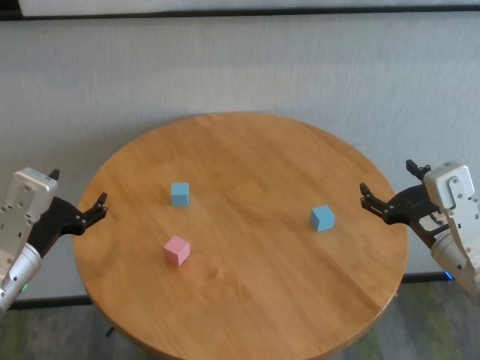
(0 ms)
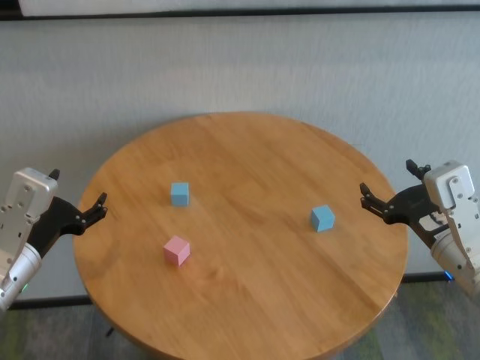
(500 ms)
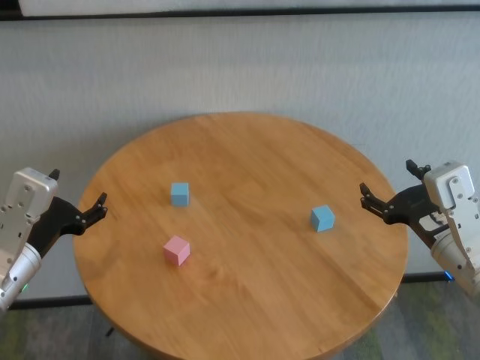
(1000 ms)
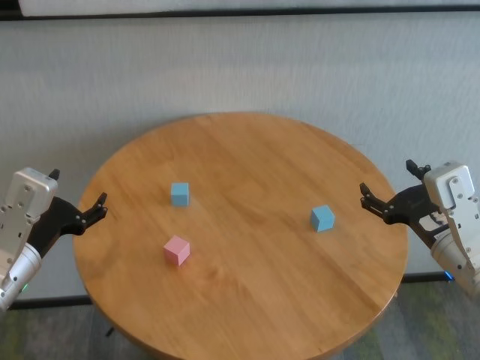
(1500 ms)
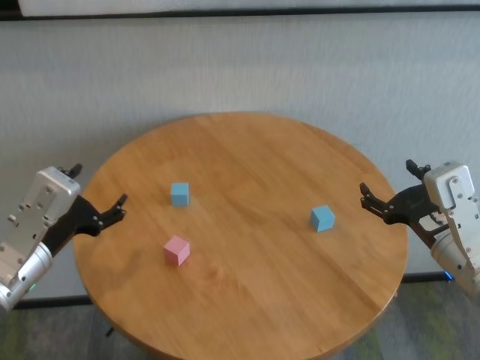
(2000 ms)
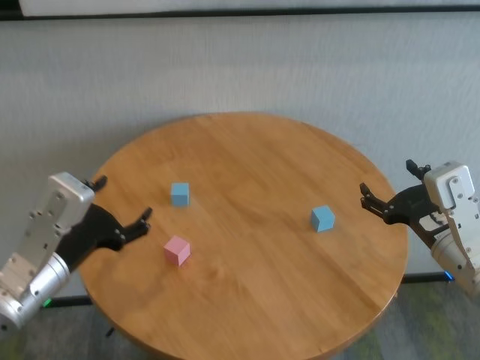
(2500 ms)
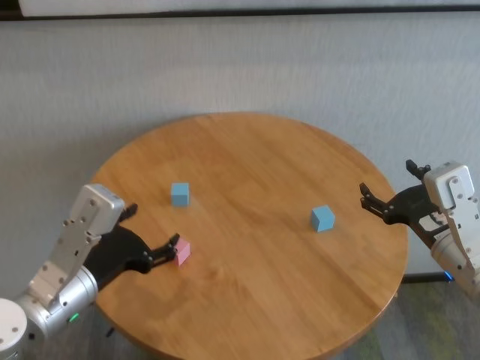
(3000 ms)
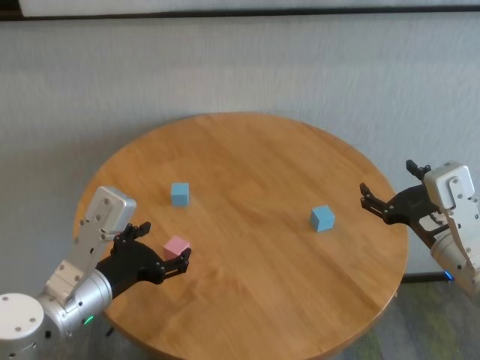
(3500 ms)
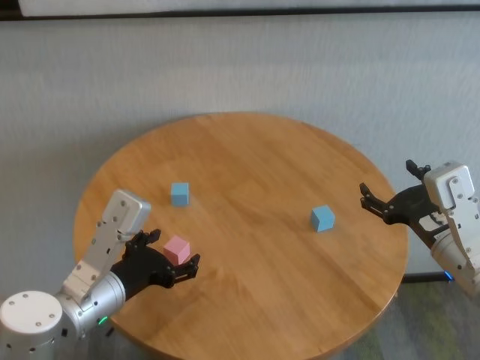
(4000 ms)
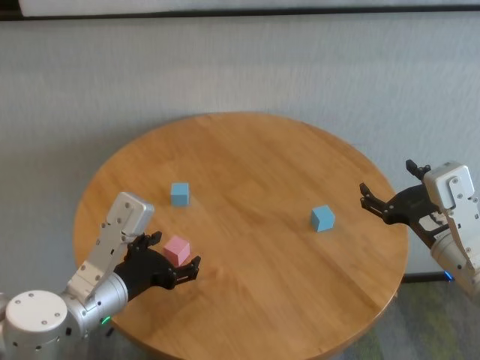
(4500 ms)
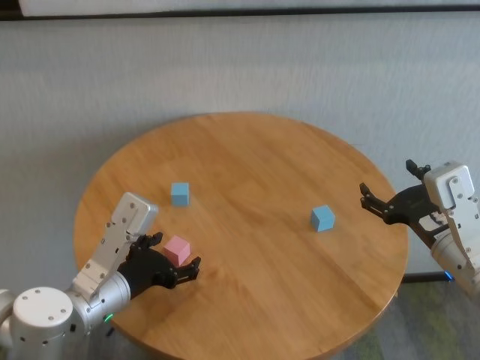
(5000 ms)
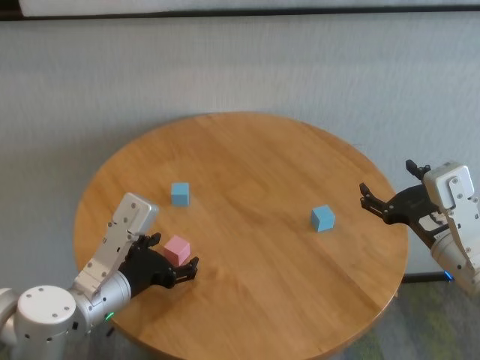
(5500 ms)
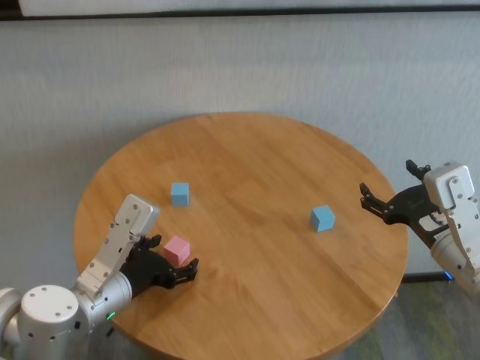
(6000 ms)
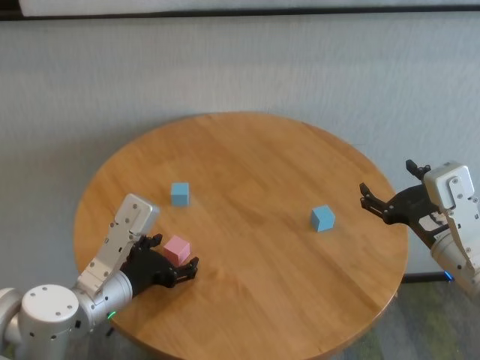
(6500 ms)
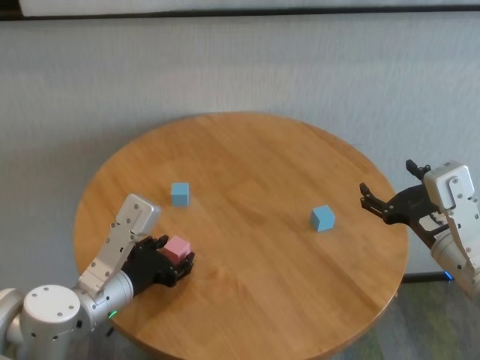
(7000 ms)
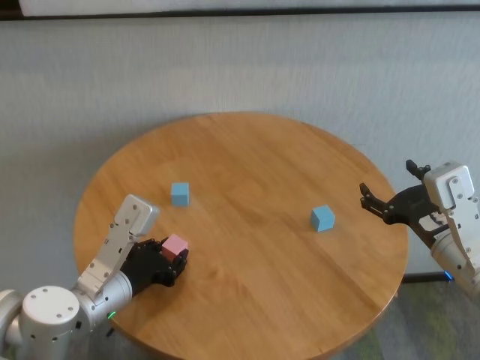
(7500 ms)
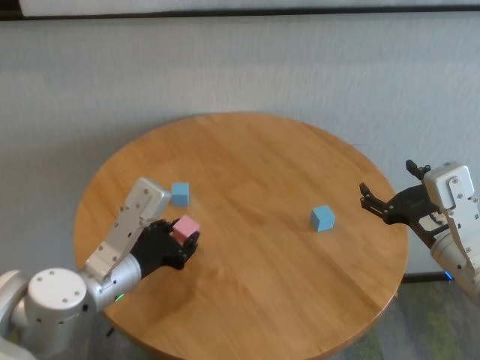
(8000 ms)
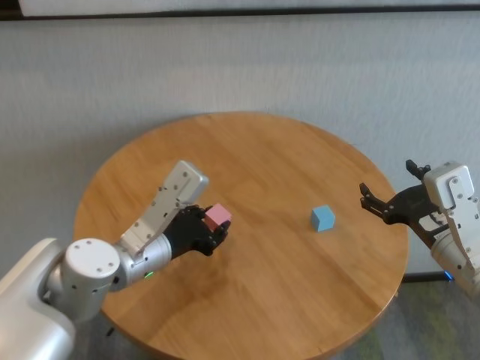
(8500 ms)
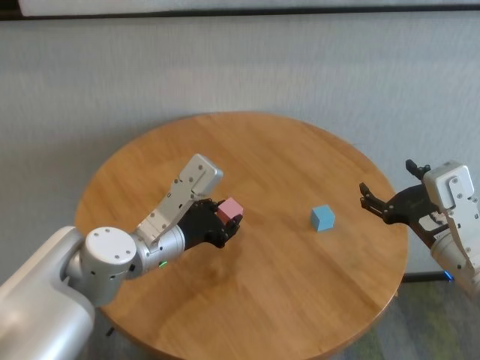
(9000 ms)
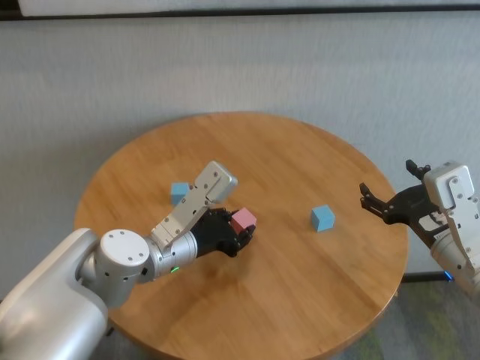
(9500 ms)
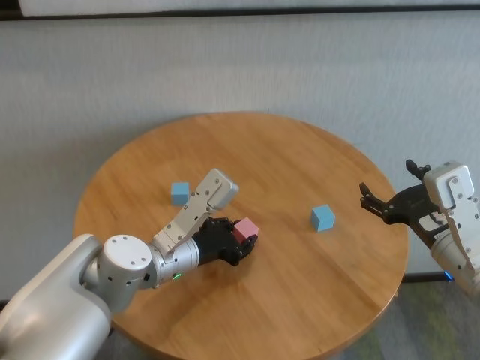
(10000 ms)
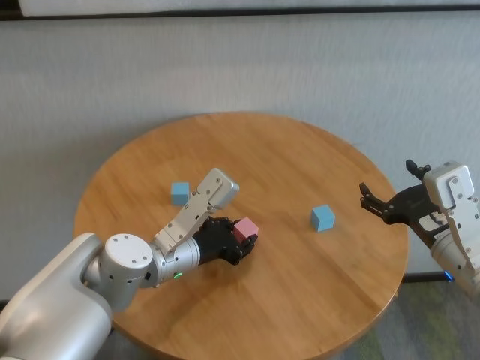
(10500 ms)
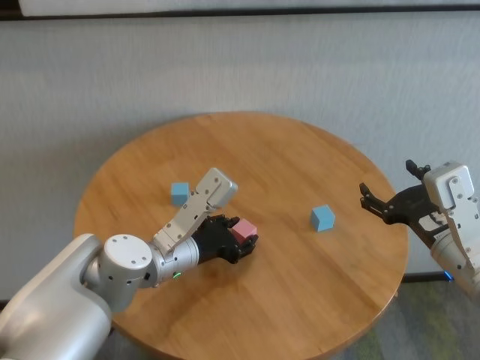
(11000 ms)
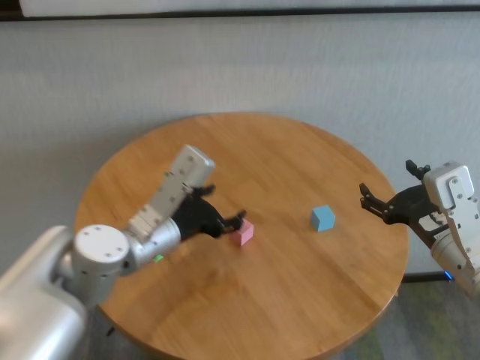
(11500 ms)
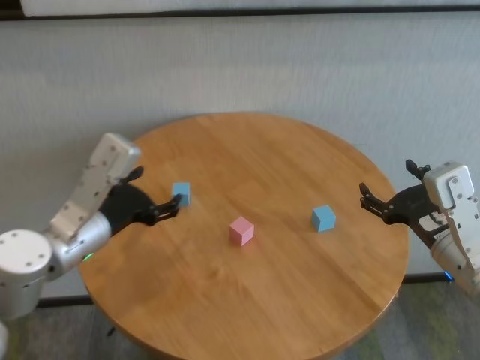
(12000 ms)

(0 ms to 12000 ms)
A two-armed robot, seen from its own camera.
Task of the whole recording: stack building blocks on the table.
Step, 0 ms - 7000 ms: Grasp the pink building block with left gripper.
Step, 7500 ms - 11000 ms: Place the pink building block in the center of table with left gripper.

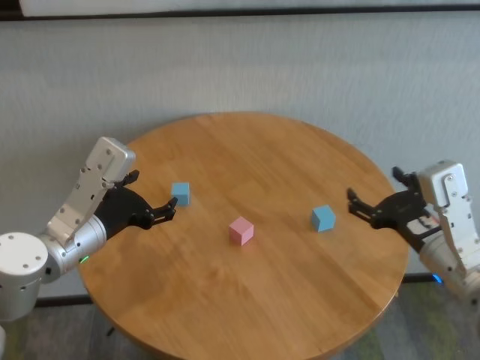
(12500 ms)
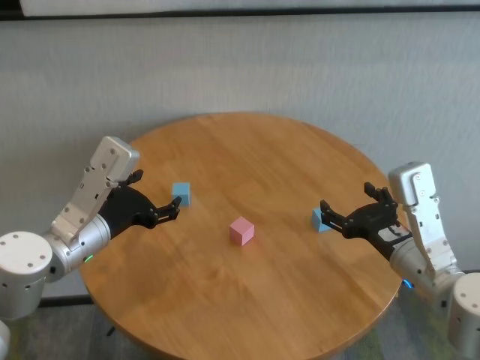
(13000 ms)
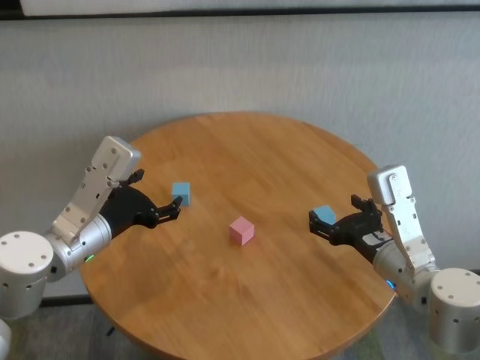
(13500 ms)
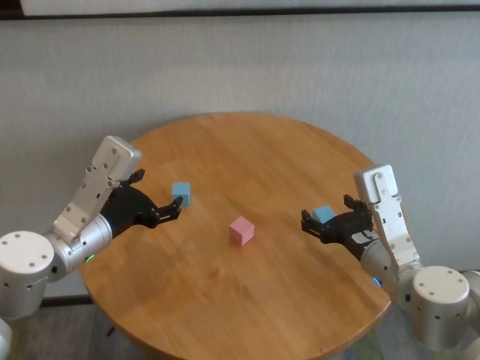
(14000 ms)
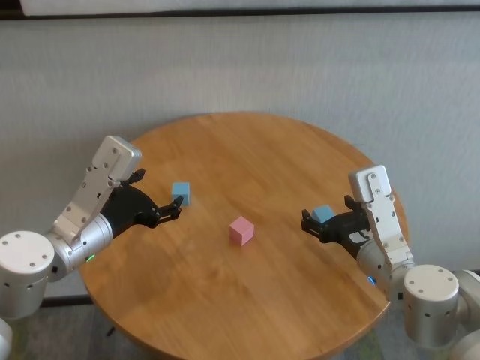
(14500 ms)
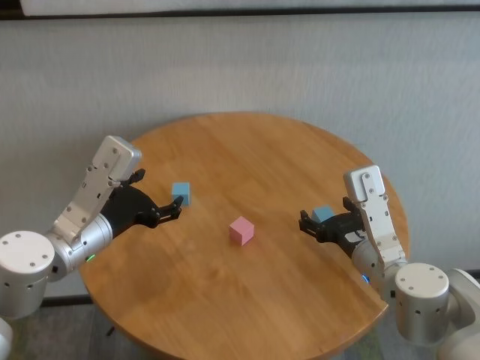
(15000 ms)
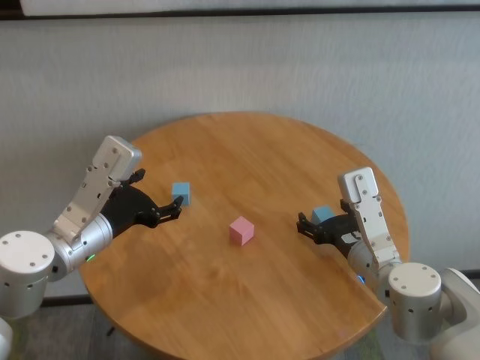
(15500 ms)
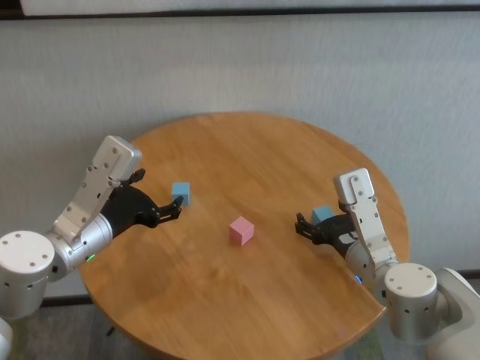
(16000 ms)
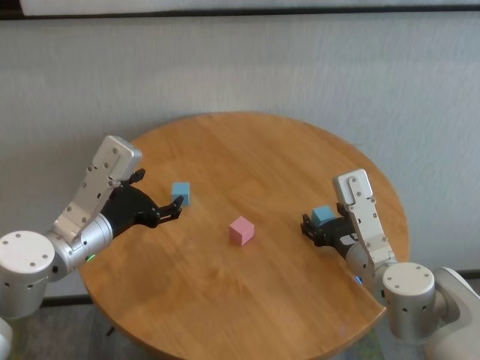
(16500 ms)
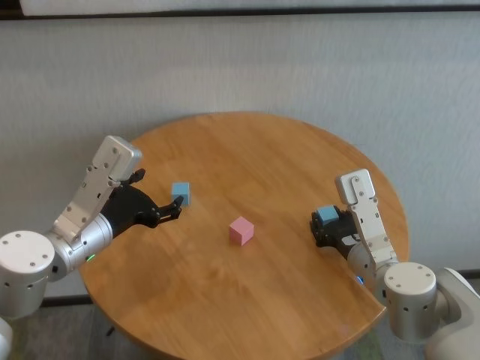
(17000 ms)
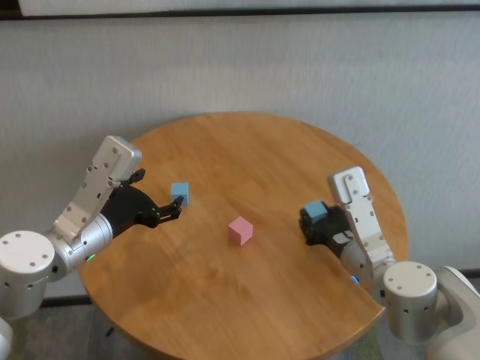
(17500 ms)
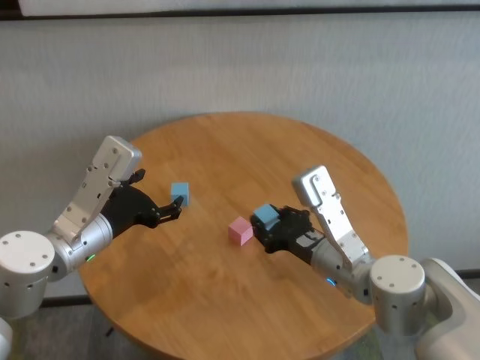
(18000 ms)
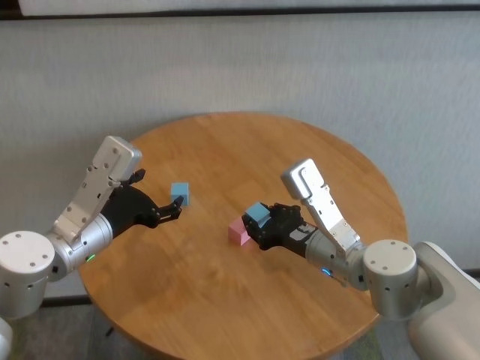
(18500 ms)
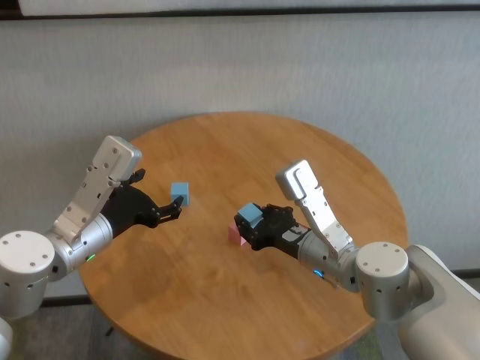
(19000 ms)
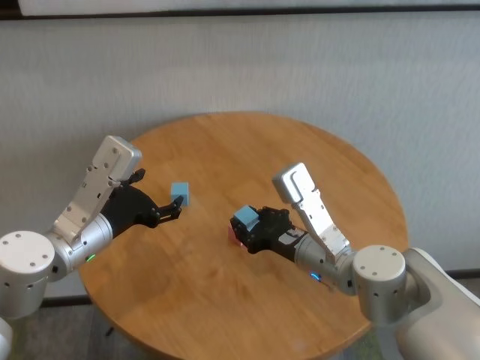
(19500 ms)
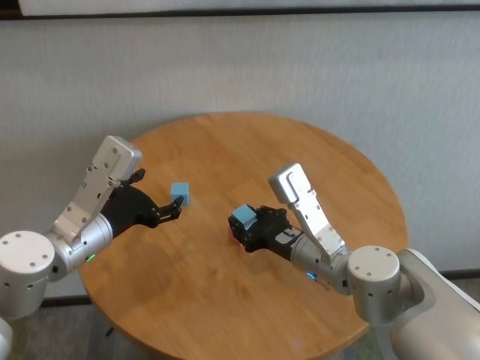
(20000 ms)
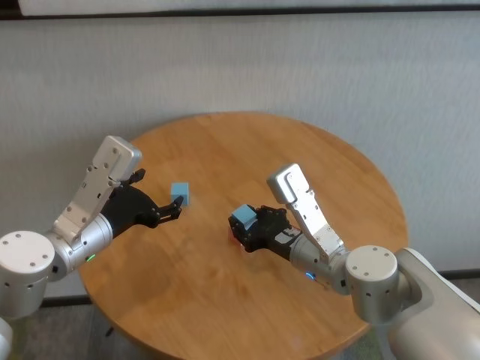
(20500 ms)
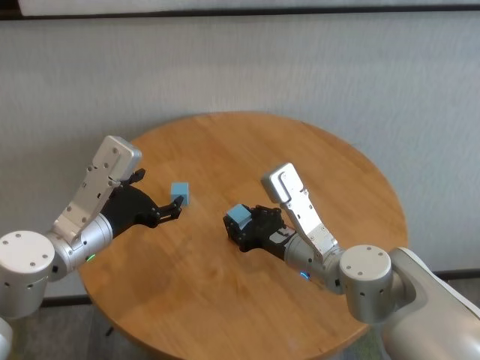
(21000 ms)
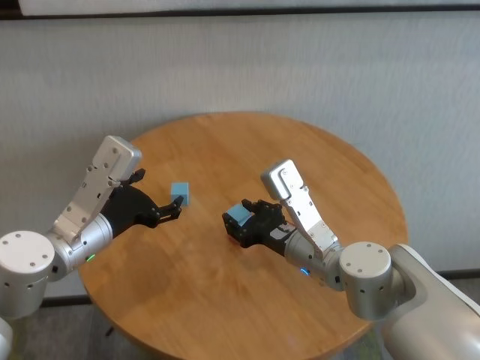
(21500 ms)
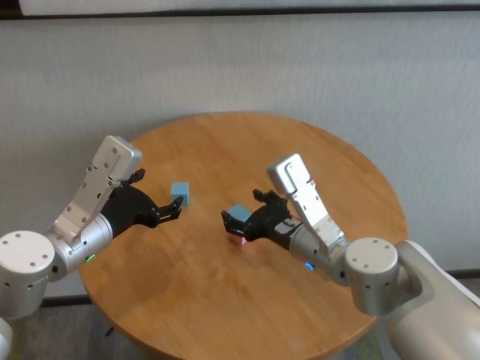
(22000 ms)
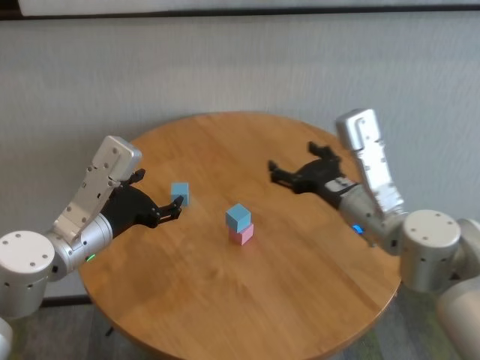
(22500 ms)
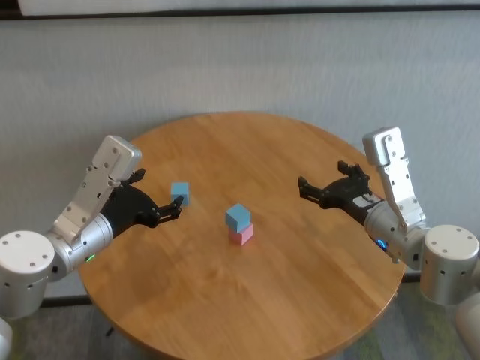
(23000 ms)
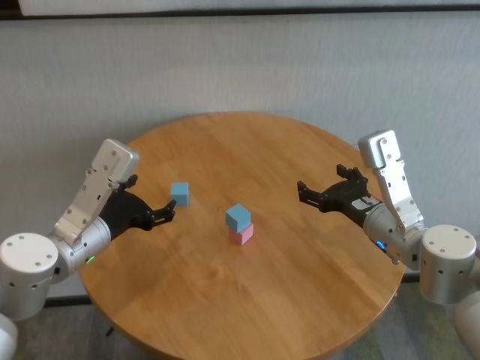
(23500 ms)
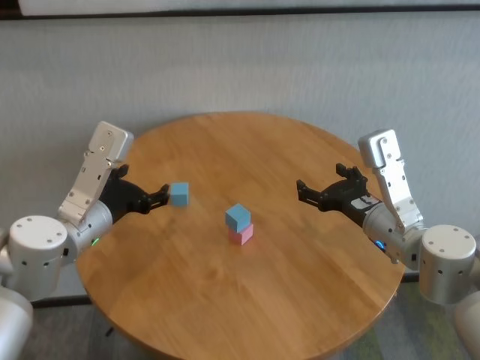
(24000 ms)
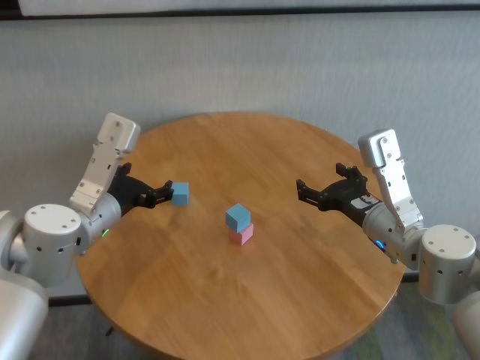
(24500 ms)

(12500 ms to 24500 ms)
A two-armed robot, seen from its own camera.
Task of the whole recording: stack building blocks on the table.
Step, 12500 ms - 17000 ms: Grasp the blue building block with right gripper.
Step, 17500 ms - 21500 ms: Place the blue building block on the pink building blocks with right gripper.
